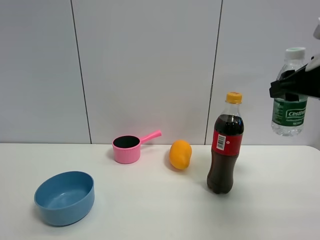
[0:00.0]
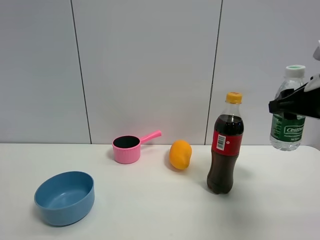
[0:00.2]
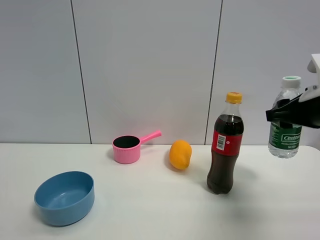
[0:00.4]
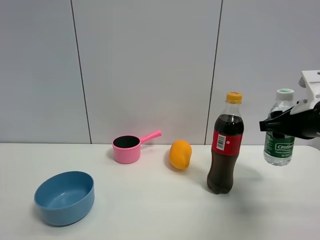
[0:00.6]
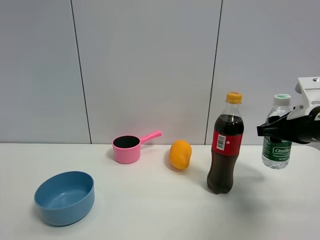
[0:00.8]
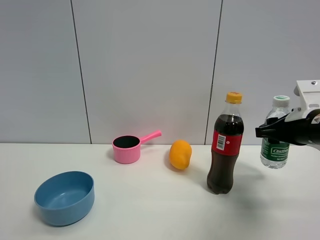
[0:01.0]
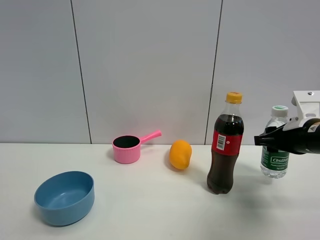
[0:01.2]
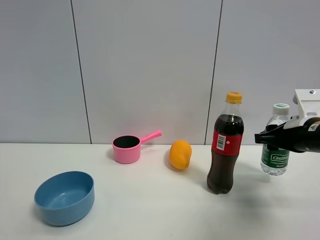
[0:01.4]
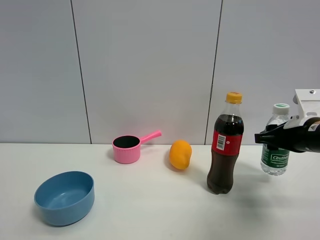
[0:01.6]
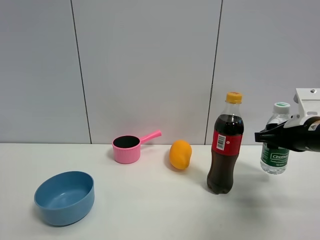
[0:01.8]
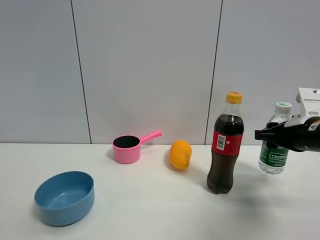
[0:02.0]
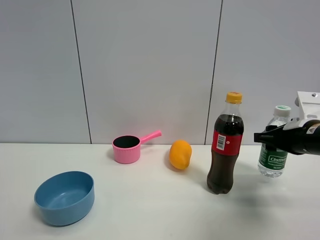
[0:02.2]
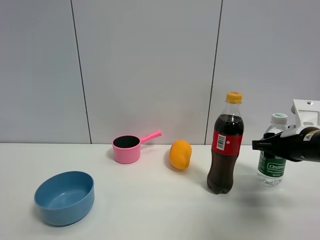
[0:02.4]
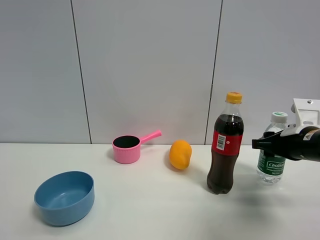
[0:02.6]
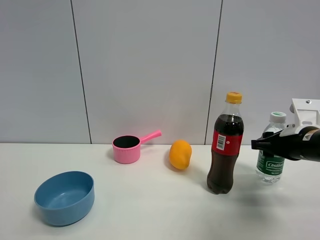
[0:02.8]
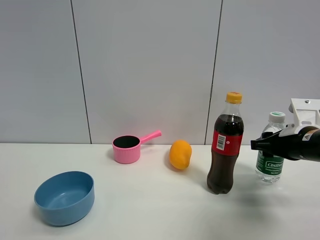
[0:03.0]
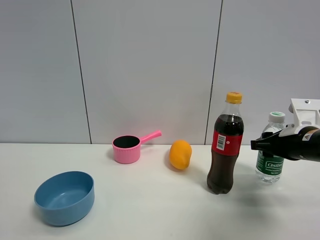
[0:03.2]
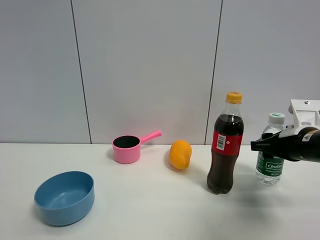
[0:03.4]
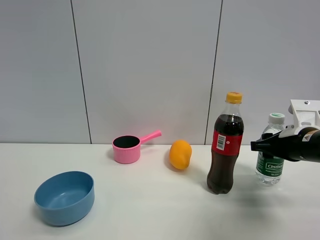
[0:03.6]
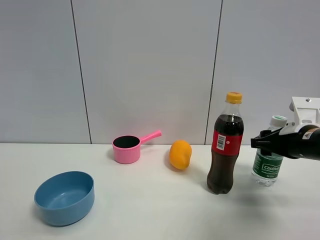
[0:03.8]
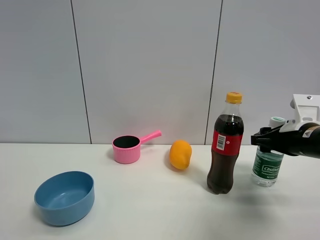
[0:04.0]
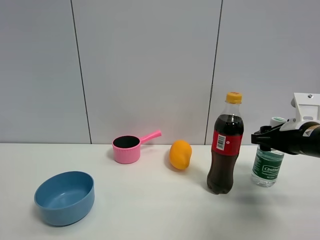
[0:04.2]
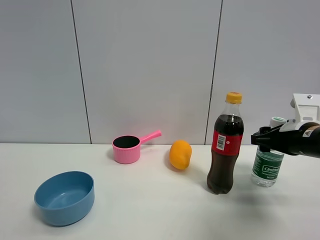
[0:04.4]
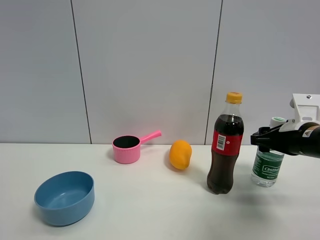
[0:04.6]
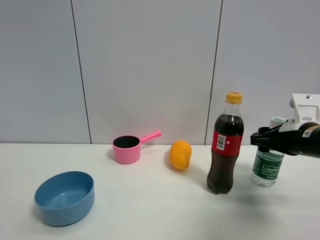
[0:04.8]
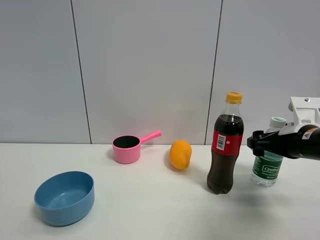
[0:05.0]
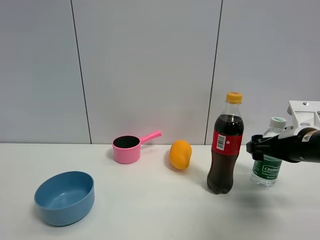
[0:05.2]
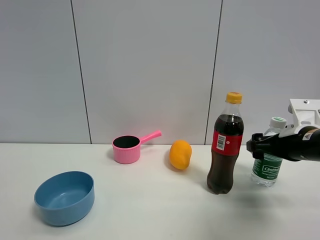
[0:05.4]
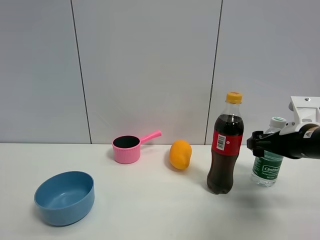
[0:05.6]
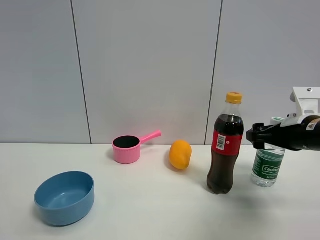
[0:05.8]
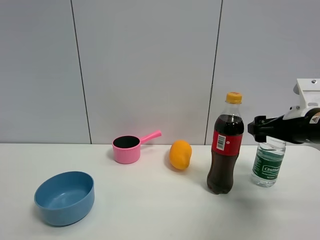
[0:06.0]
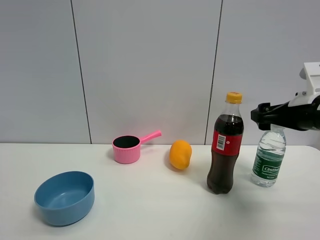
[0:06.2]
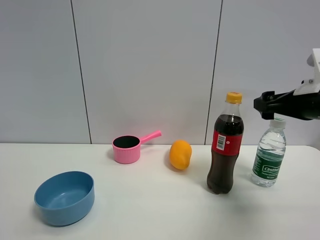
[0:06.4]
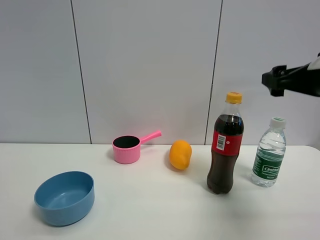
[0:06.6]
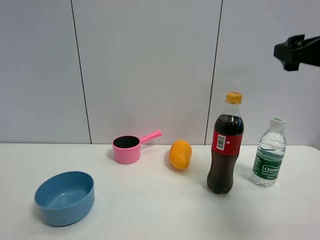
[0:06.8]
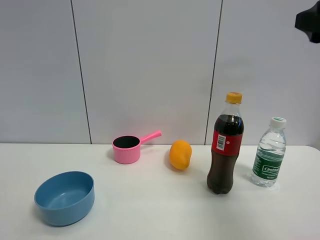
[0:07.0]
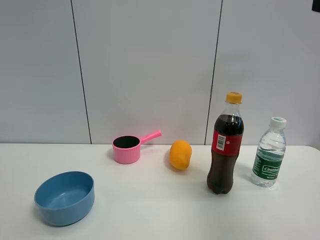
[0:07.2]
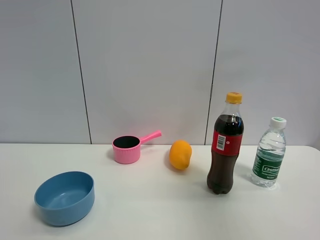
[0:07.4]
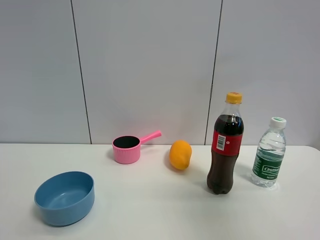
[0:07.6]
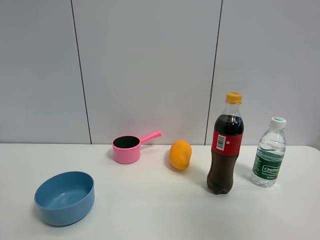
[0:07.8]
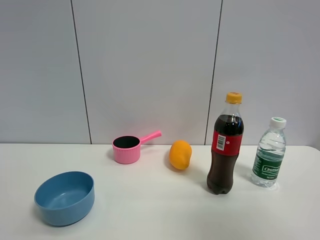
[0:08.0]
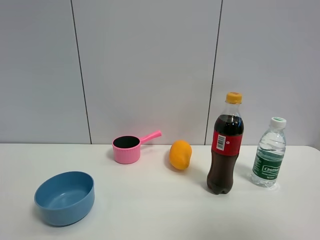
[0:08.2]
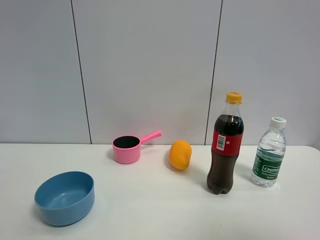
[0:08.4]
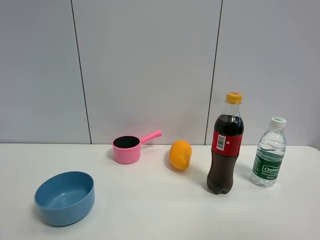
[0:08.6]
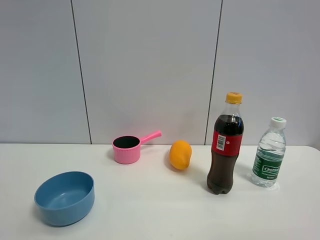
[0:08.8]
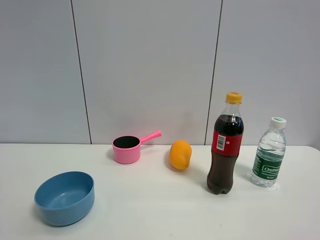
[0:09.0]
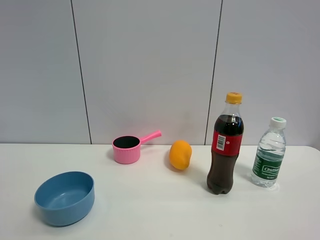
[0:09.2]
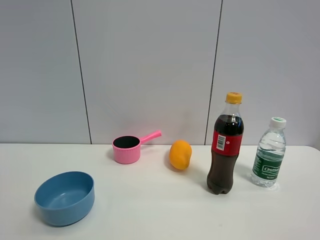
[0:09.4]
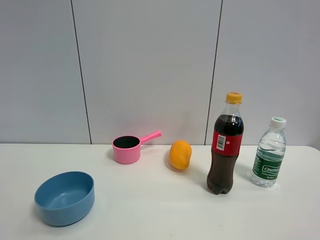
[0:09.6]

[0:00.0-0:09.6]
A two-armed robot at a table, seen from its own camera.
Task of the whole recording: the gripper move the object.
Step, 0:00.0 to 0:04.0: Place the YiBao mineral water on the table with the right gripper.
0:00.0 to 0:01.6: The right gripper goes roughly 10 cm downward.
0:01.6 to 0:03.2: There are only small adjustments of the grippers.
0:03.2 to 0:04.8: Neither gripper changes place.
0:04.8 to 0:06.4: The right gripper travels upward by about 10 cm, and opens up.
0:06.4 to 0:08.0: The right gripper moves backward and upward, some 30 cm.
0:08.0 to 0:09.6: The right gripper heads downward and backward, covering roughly 15 cm.

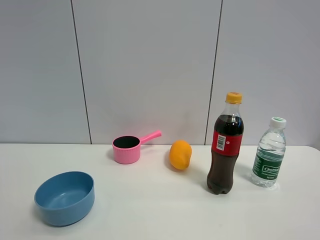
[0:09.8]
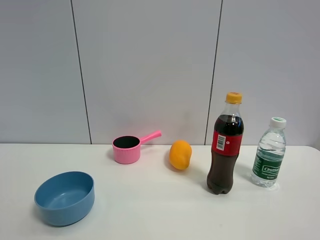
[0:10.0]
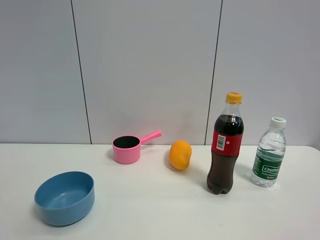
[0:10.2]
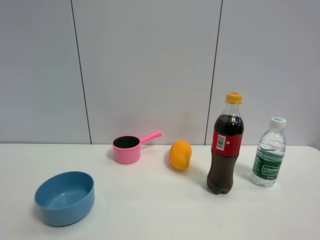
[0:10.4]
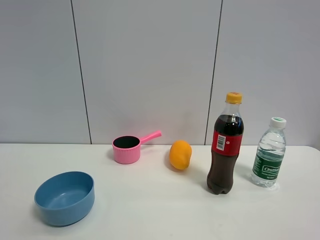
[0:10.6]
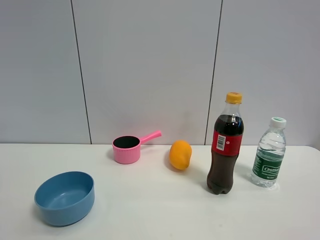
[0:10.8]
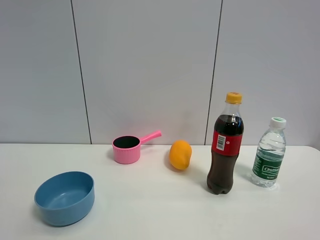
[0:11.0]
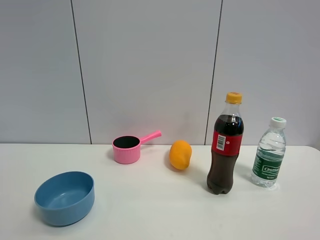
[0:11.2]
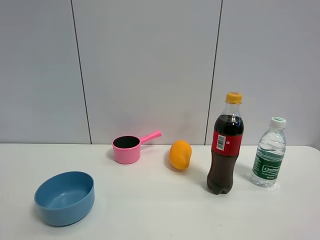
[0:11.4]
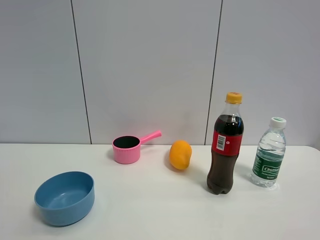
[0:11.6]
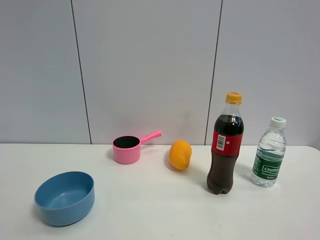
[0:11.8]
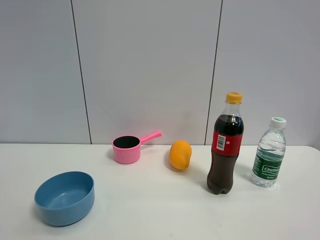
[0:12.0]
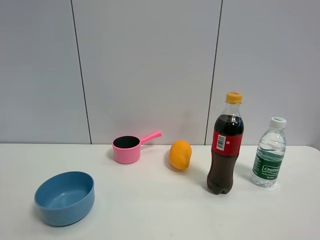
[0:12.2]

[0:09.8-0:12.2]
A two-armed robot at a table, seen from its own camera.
Task of the whole recording: the gripper move the object.
0:11.0 to 0:12.2: The two grippers keep their place.

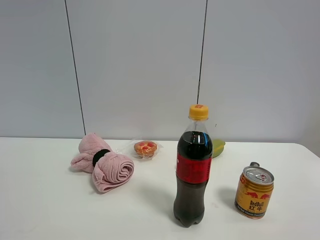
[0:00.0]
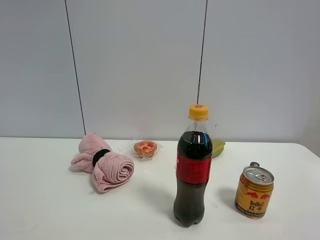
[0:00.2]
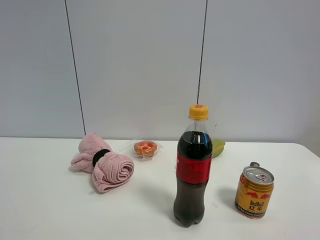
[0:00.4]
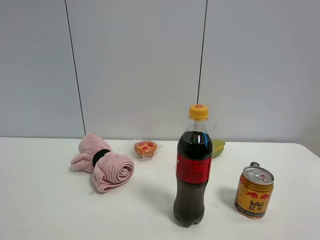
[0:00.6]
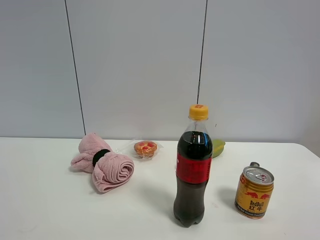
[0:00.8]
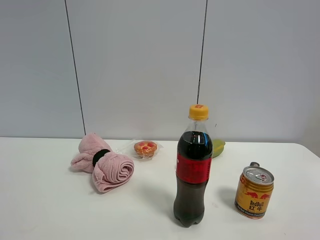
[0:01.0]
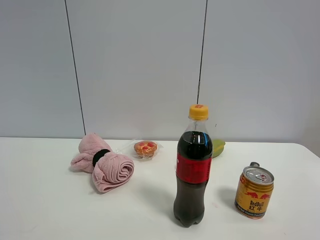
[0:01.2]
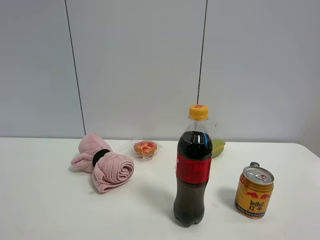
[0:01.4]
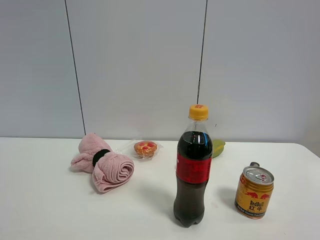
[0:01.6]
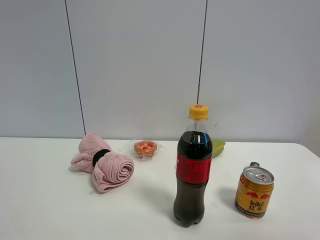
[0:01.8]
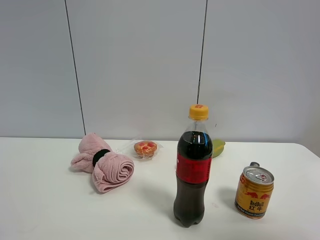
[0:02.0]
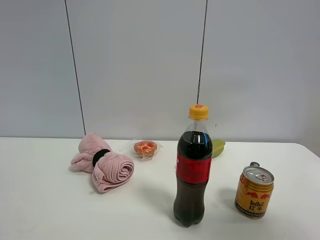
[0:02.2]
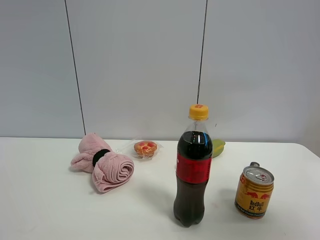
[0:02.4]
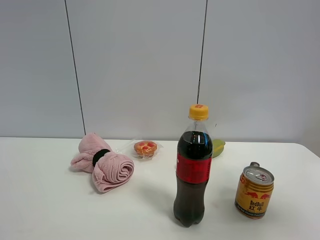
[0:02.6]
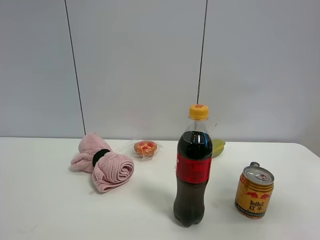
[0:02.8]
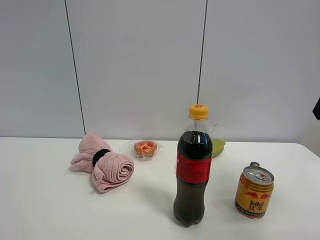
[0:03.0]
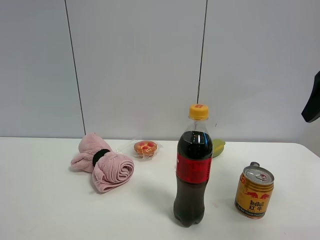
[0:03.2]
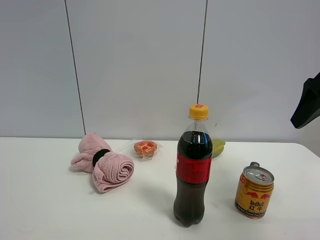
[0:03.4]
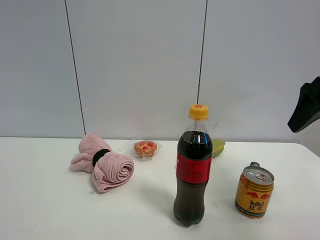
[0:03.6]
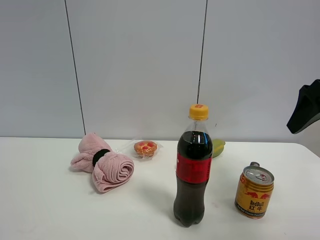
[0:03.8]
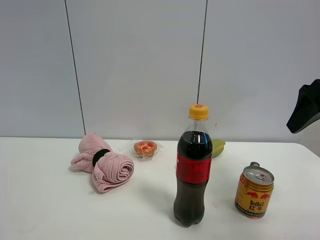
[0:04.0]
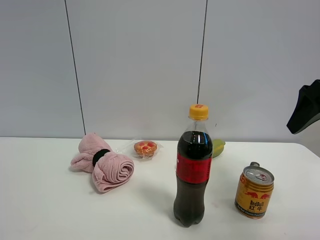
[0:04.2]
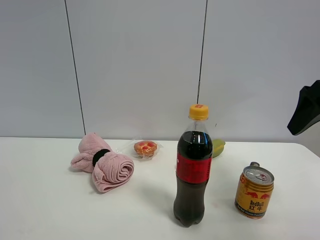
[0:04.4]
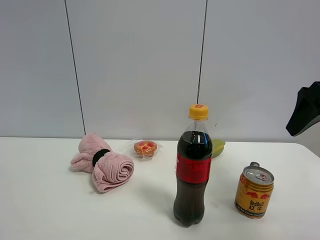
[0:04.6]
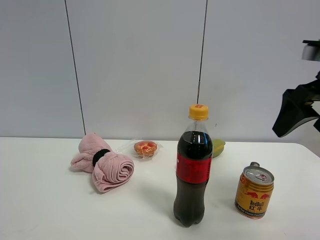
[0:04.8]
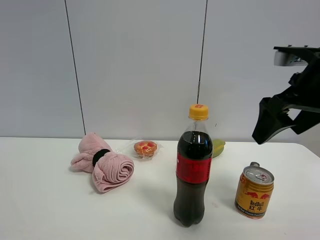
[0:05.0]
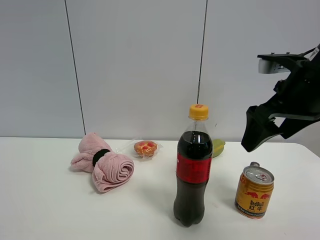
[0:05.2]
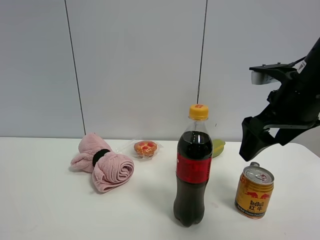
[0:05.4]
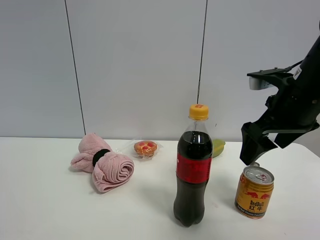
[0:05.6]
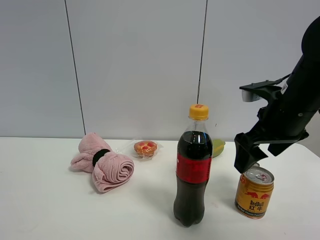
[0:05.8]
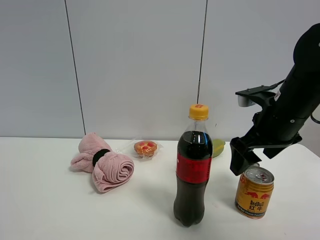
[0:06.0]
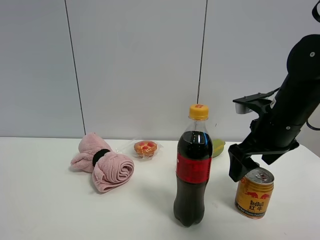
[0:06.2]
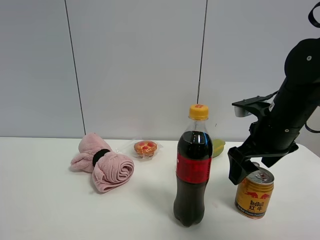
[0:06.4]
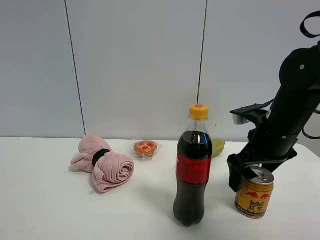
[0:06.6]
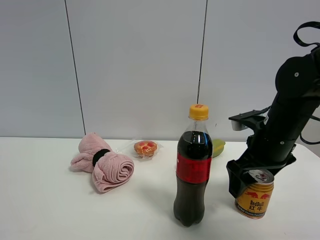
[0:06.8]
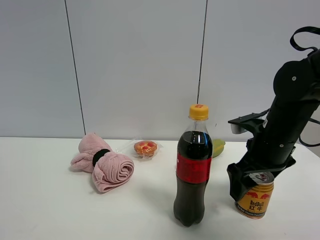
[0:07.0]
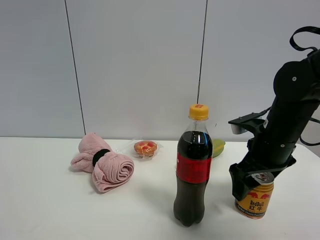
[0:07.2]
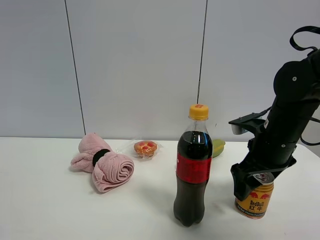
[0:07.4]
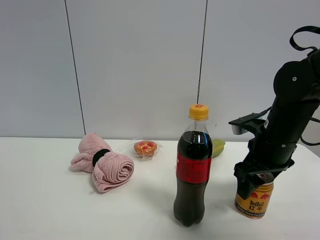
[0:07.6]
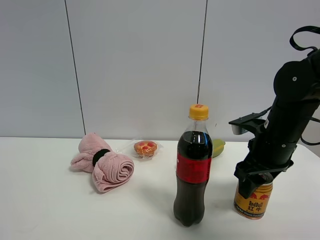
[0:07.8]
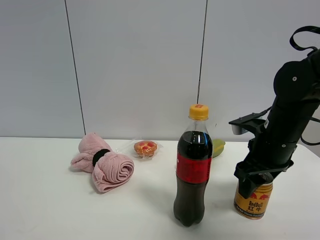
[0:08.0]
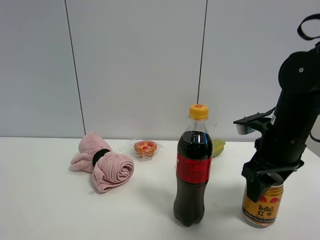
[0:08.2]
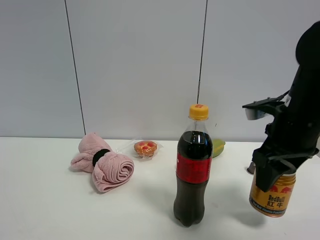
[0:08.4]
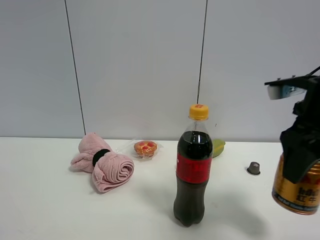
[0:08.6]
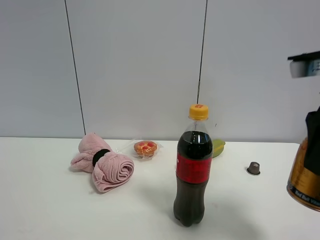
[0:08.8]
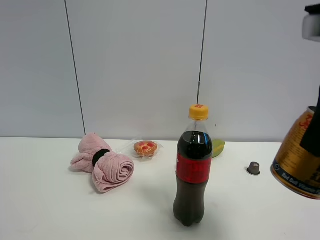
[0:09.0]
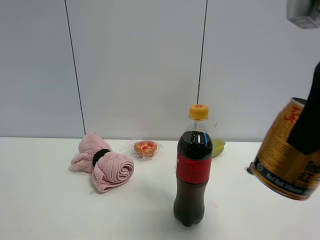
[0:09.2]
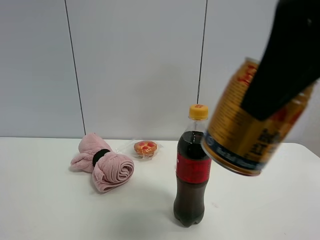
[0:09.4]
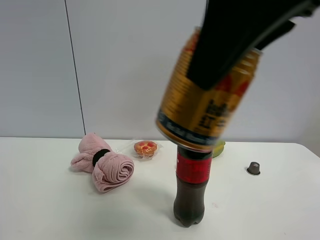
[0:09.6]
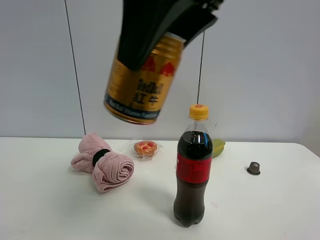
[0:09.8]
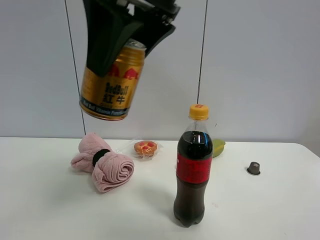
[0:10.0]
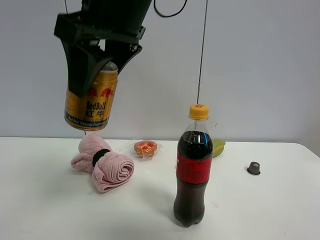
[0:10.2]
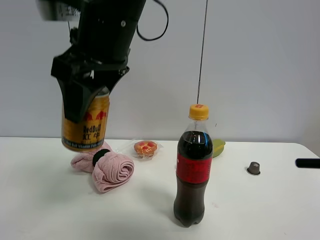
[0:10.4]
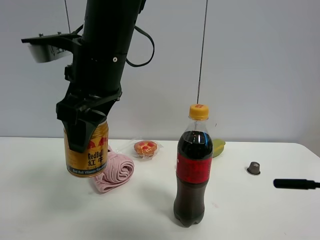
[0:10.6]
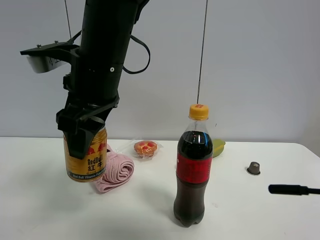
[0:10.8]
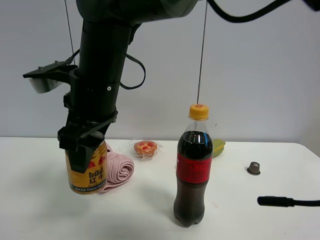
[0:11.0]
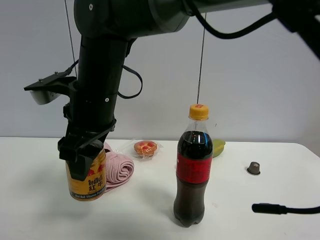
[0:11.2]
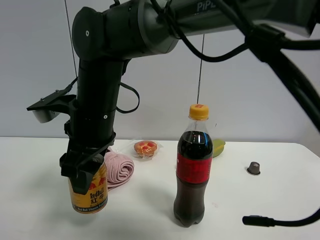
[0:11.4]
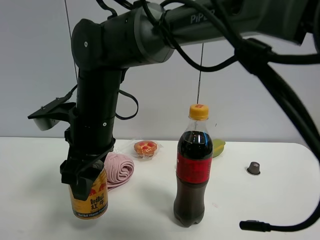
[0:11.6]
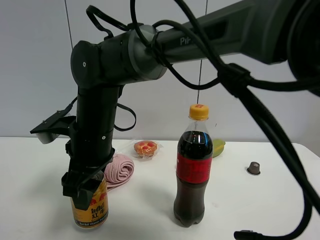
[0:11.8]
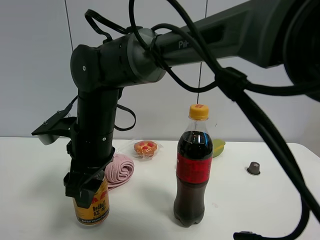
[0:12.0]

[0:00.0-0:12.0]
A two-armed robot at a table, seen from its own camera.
Task of the whole recording: the gripper move the object.
Step, 0:00.0 to 0:07.6: Grasp the red bull with the right gripper.
0:01.6 to 0:03.0: The right gripper is displaced forward by roughly 25 cm.
0:03.0 to 0:04.4: The grippers stay close to where they were, moving slightly.
0:04.4 to 0:06.0: The right gripper travels to the left and downward by about 15 cm.
0:06.0 to 0:07.6: The right gripper closes its fingers.
0:07.6 to 0:09.0: The right gripper shifts some 20 cm upward and backward.
0:09.0 to 0:10.4: The right gripper shifts about 30 cm to the left.
0:10.4 to 0:12.0: The right gripper is displaced downward by some 15 cm.
